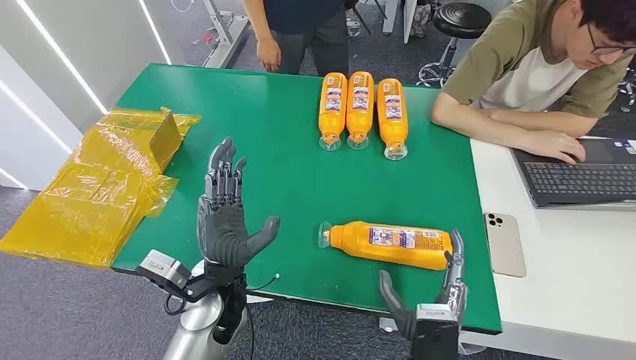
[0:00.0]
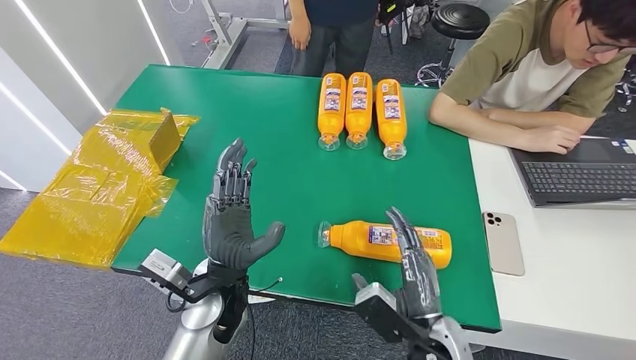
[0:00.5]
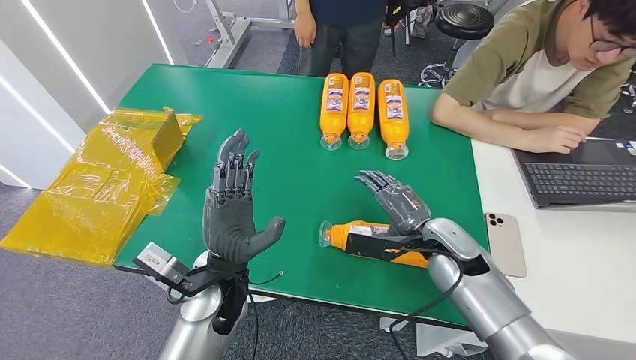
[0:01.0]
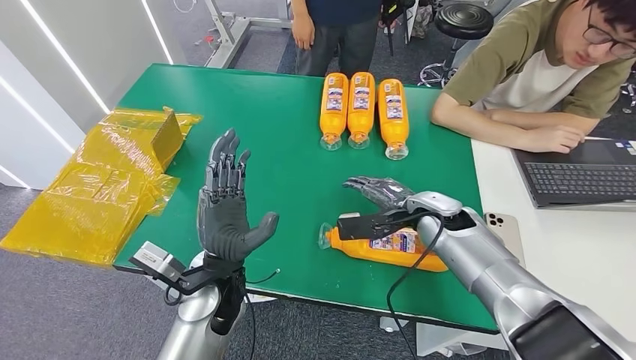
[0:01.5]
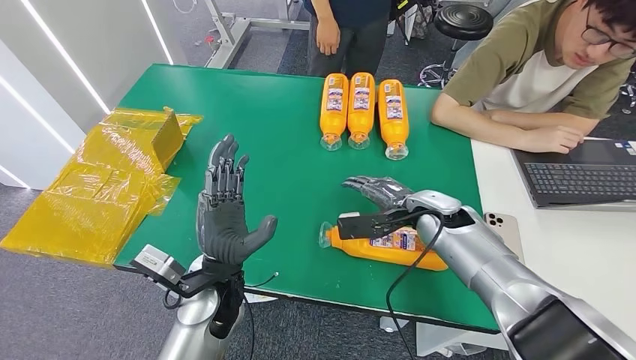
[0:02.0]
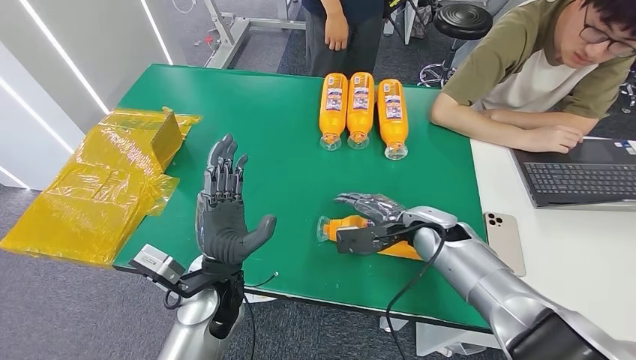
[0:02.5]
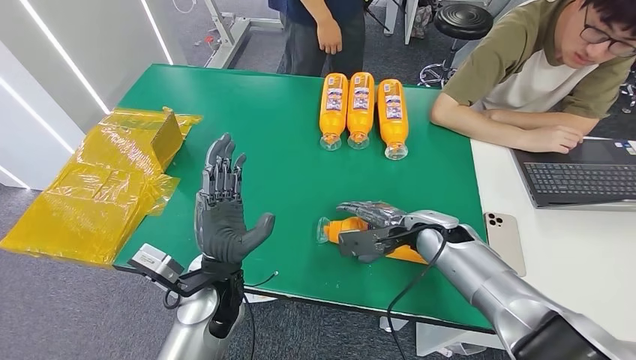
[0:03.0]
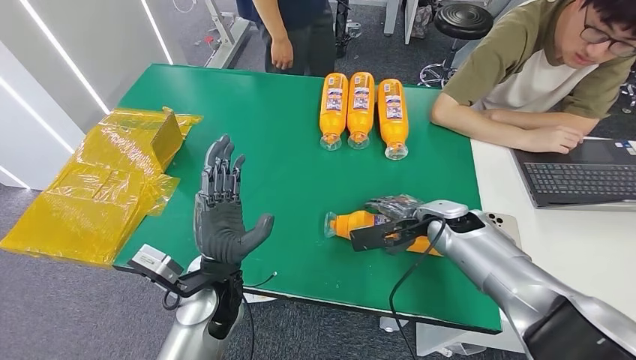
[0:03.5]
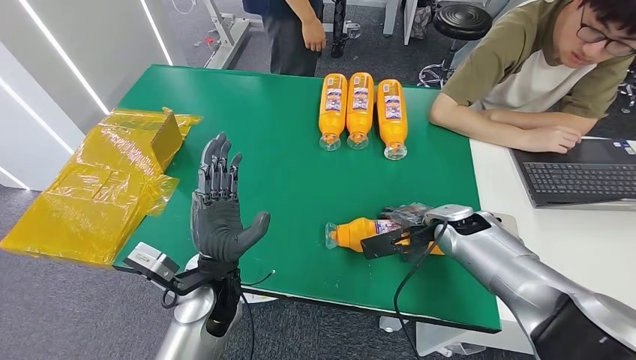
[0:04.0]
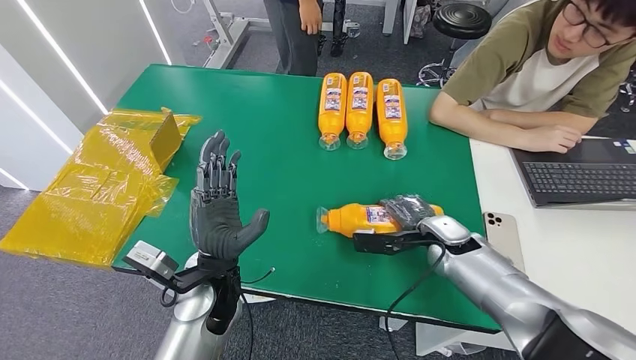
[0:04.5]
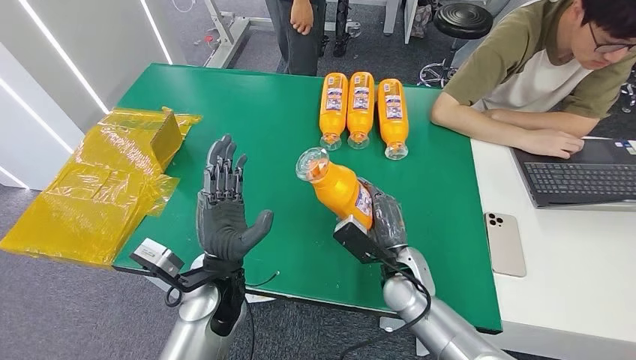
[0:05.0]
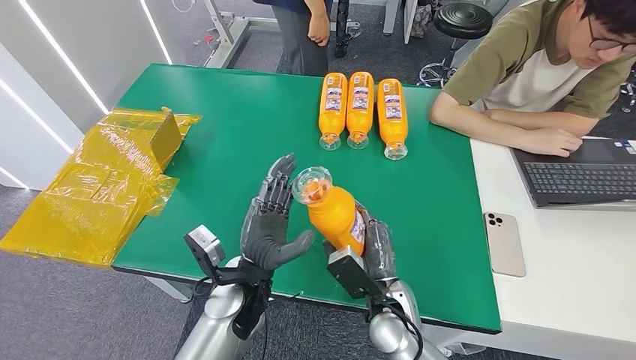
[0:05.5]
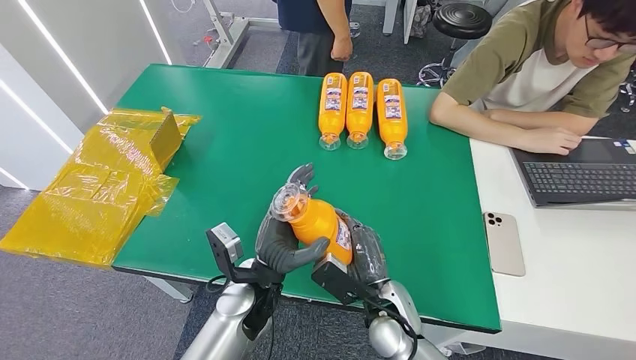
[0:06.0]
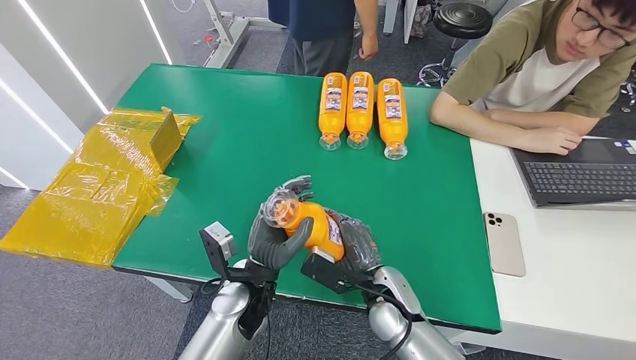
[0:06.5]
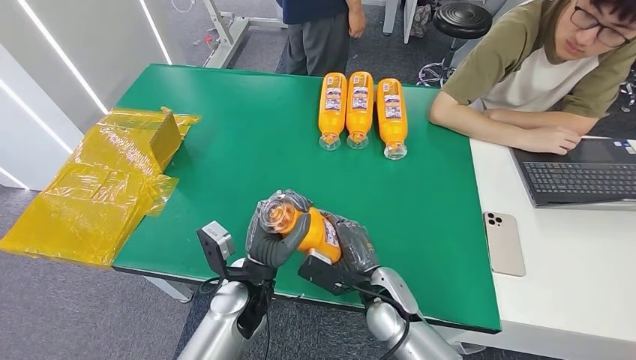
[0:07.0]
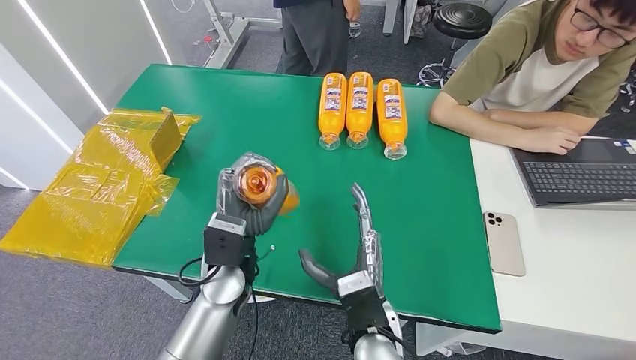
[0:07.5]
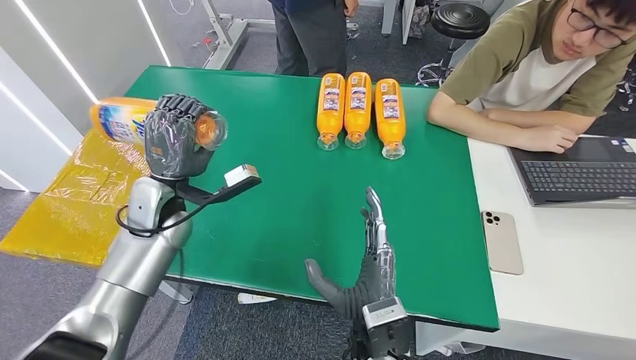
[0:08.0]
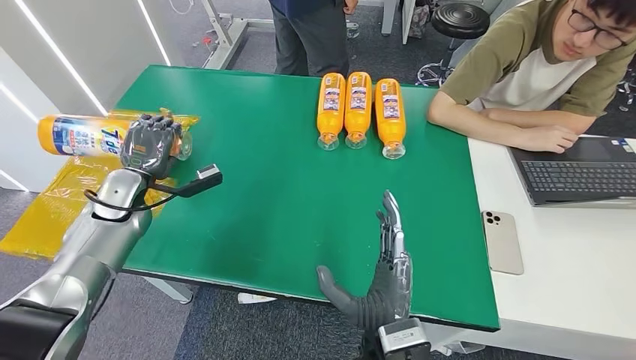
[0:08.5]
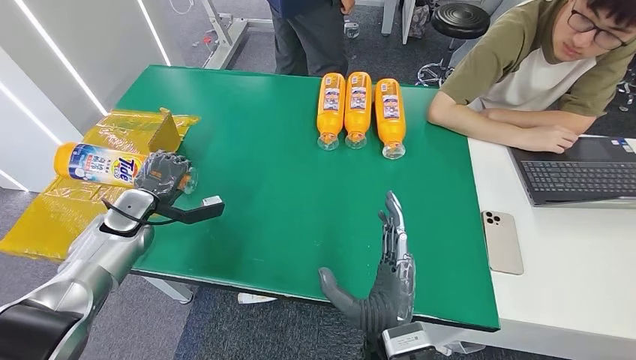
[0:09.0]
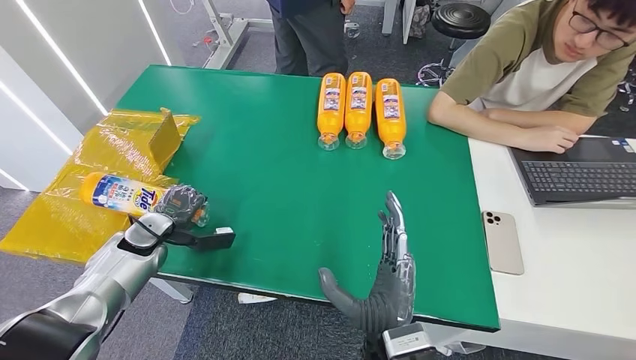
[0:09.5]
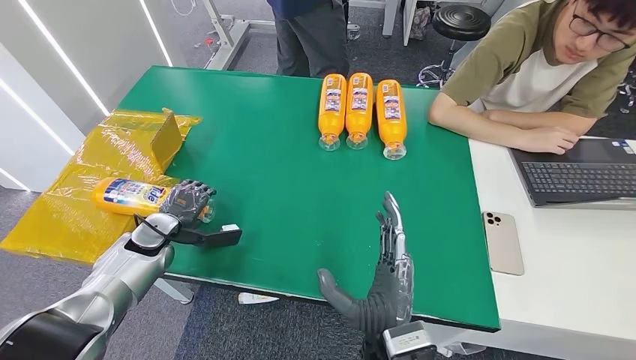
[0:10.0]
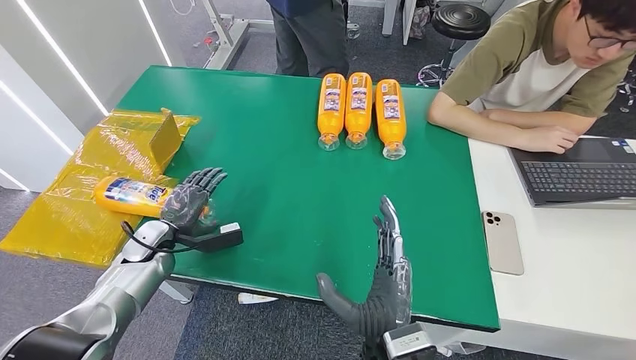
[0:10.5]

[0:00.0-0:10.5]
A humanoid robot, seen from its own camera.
Step, 0:00.0 to 0:05.5: Pick up the bottle from the table.
Step, 0:06.0 to 0:10.5: Turn the bottle to the front side.
0:08.5 to 0:10.5: The left hand is displaced downward and backward by about 10 cm.
